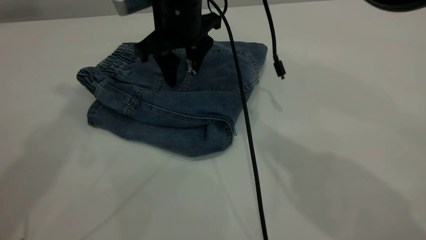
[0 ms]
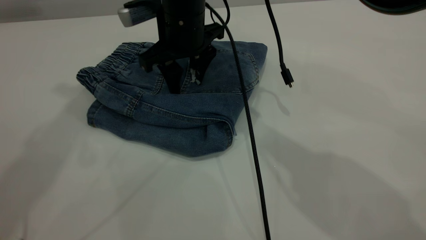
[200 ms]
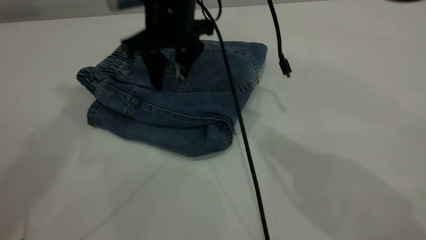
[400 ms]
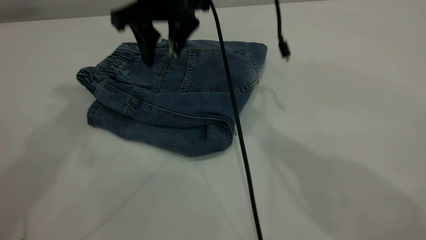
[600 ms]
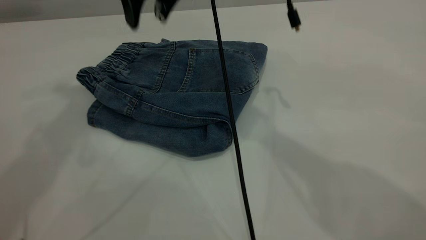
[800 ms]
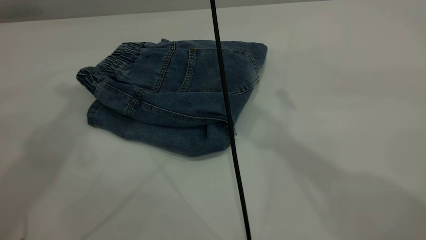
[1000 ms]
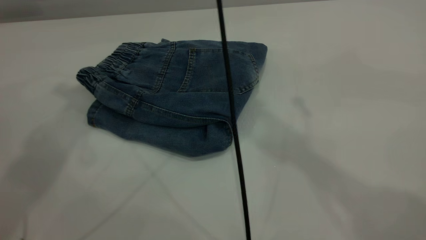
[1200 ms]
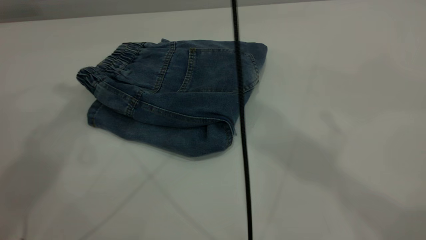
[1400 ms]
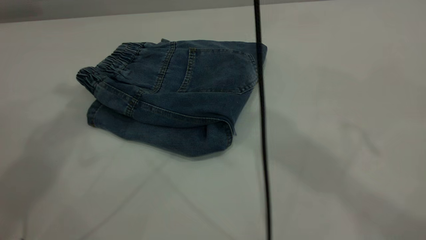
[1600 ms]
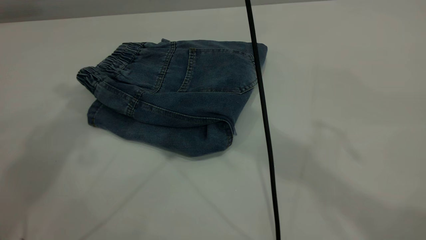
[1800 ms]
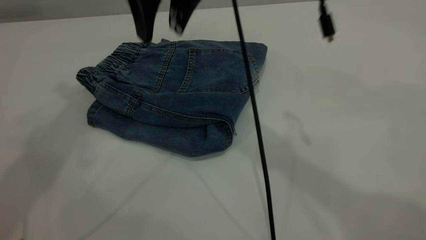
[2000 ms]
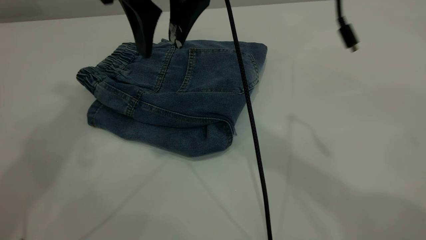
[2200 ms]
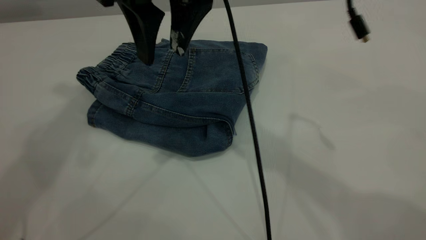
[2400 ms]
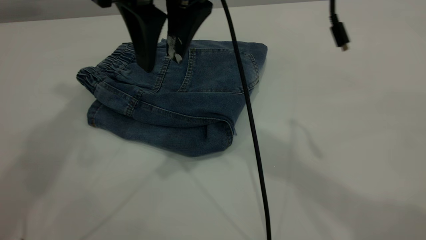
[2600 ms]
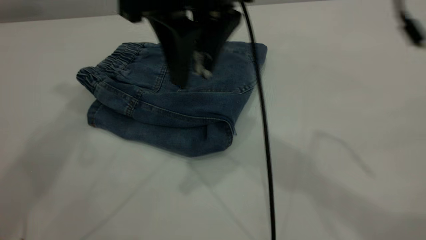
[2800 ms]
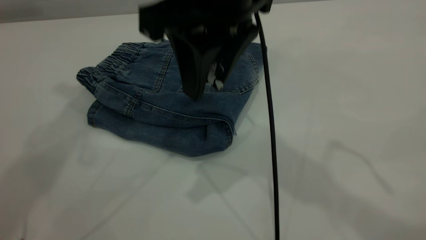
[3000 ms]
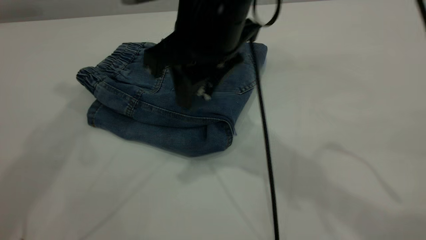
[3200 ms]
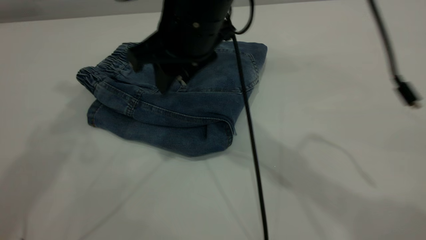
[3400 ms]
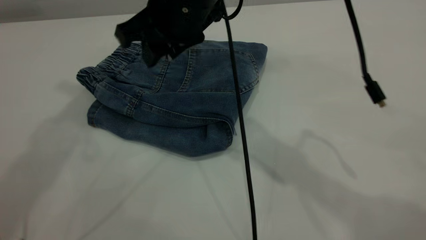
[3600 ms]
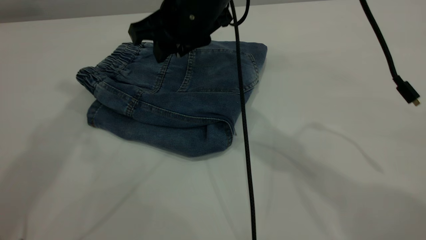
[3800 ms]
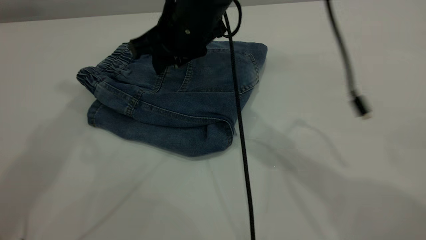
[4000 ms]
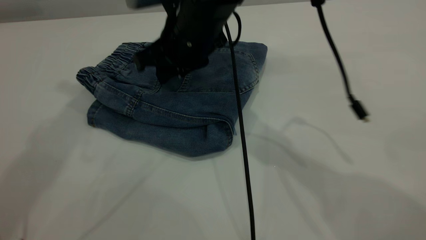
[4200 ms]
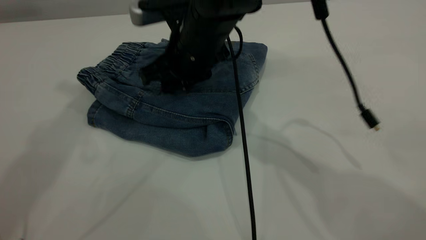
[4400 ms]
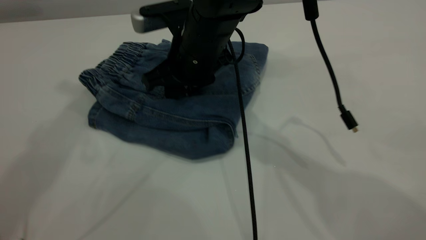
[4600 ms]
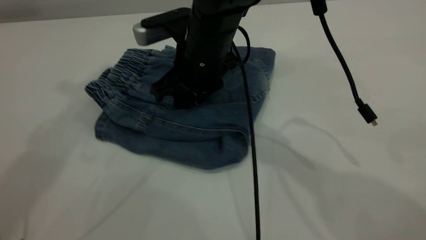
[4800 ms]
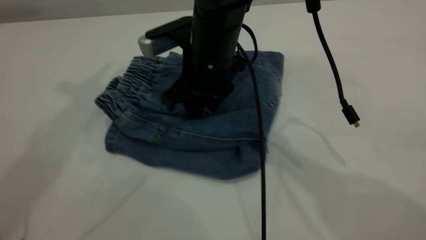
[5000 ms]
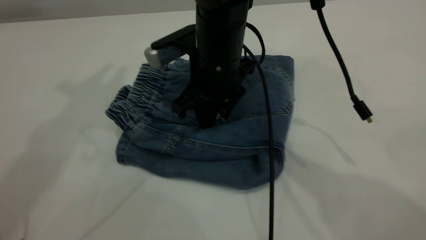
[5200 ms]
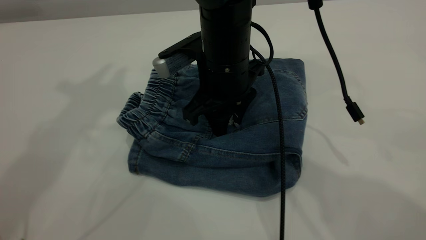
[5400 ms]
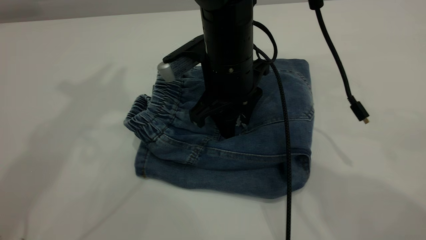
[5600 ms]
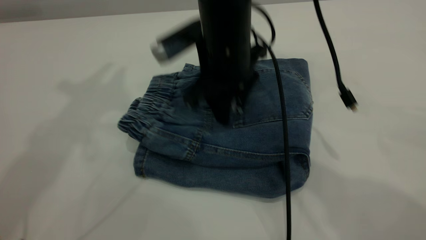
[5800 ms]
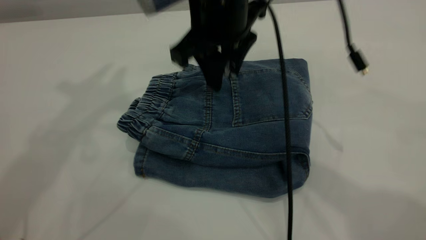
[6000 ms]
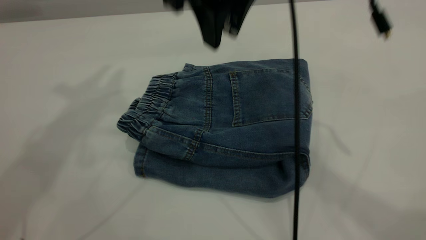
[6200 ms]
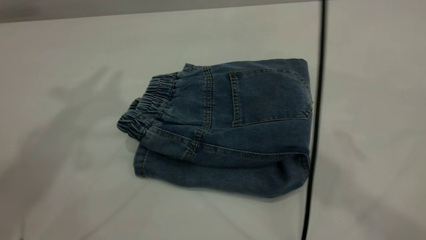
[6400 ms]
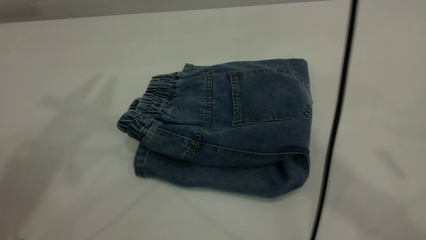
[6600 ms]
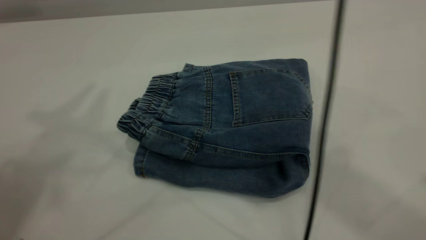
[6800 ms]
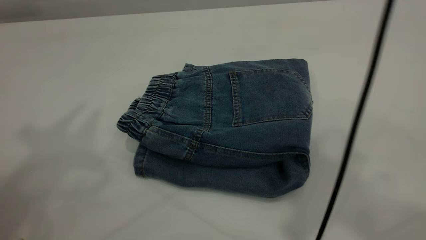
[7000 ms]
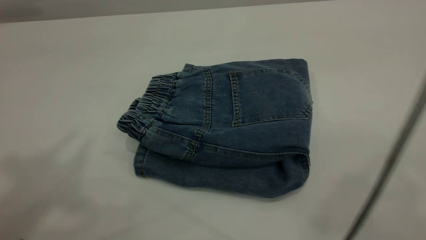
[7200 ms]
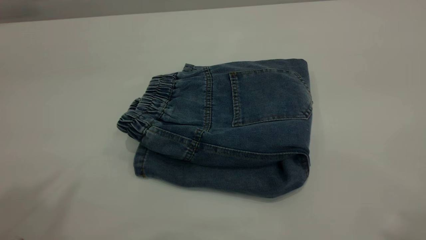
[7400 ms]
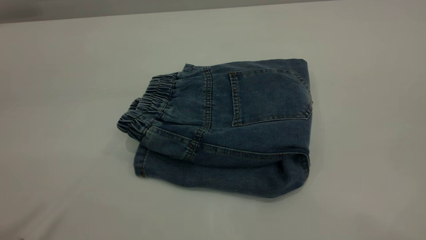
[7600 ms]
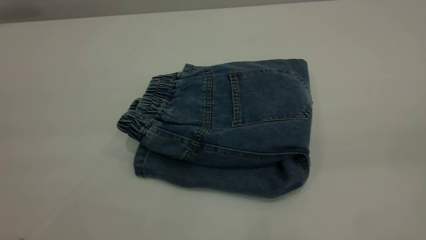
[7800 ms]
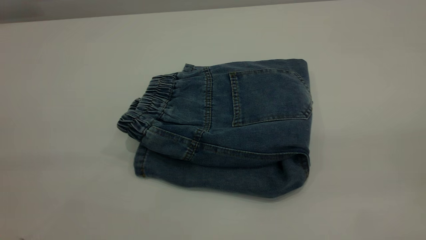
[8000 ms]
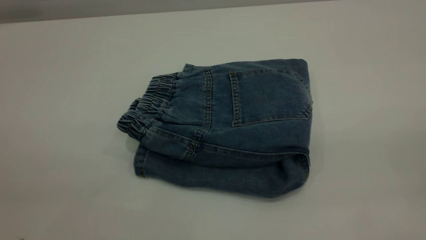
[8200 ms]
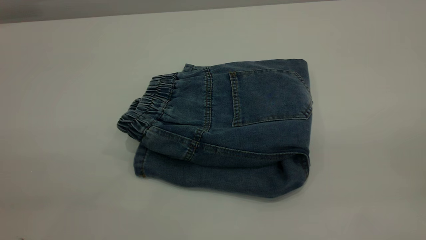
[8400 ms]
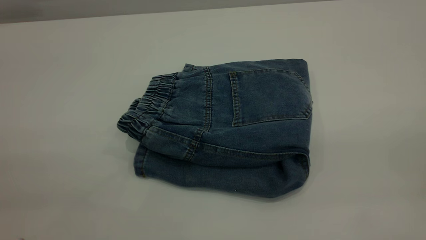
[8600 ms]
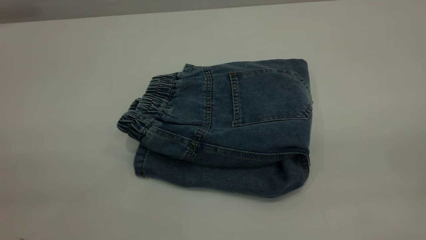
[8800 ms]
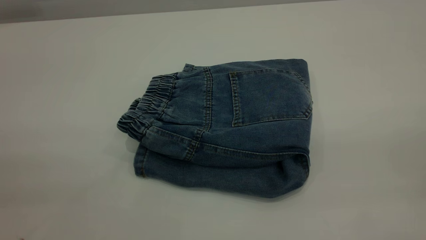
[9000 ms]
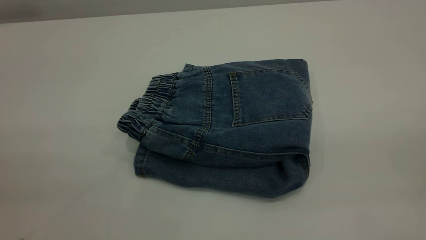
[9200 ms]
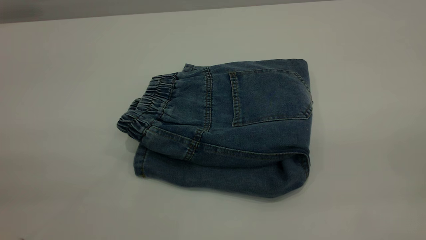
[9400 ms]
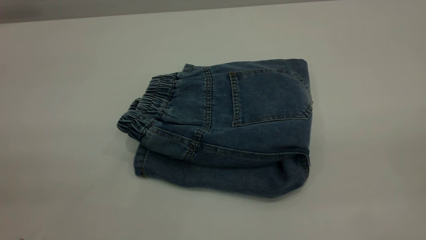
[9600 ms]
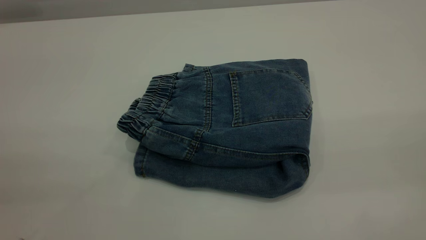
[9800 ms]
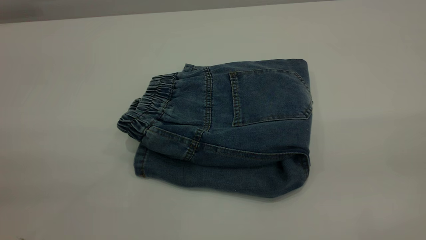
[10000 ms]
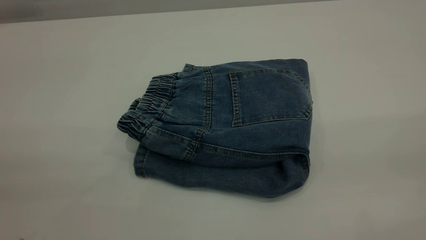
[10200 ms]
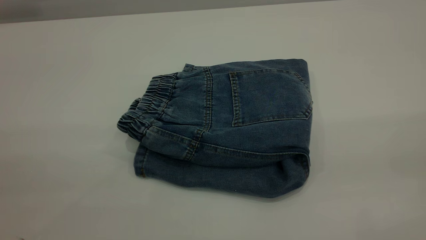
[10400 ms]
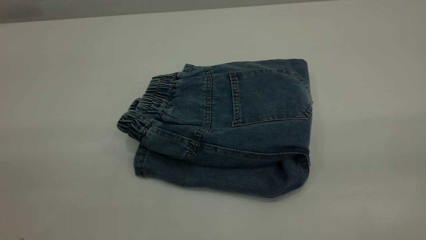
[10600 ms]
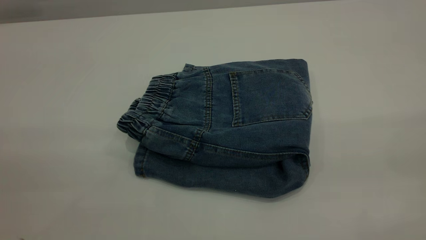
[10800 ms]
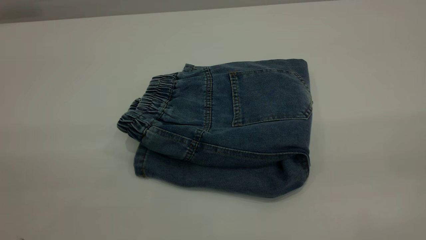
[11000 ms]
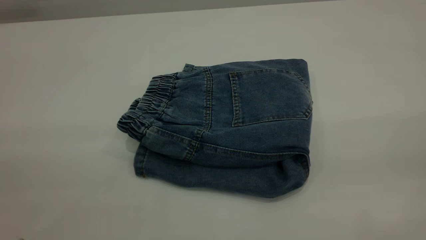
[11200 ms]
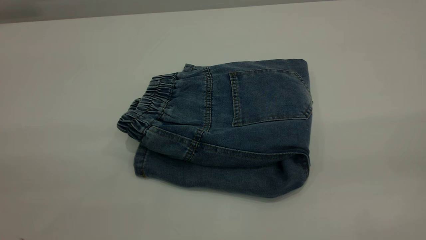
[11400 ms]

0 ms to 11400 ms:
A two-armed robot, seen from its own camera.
0 ms to 1400 ms: The right gripper heads upward, covering approximately 25 cm.
1400 ms to 2800 ms: The right gripper shifts approximately 15 cm downward.
2800 ms to 4200 ms: The right gripper moves downward and forward, some 15 cm.
4200 ms to 5600 ms: The right gripper ends up roughly 5 cm from where it was.
5600 ms to 7200 ms: The right gripper heads upward, backward and to the right, covering some 40 cm, while the left gripper travels backward and upward by some 15 cm.
7200 ms to 8600 ms: The right gripper heads backward, downward and to the right, covering roughly 25 cm.
